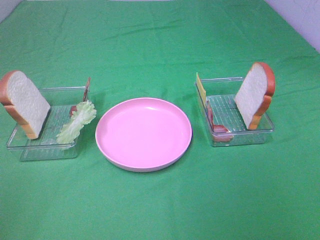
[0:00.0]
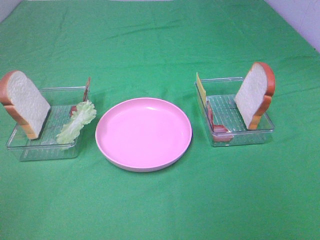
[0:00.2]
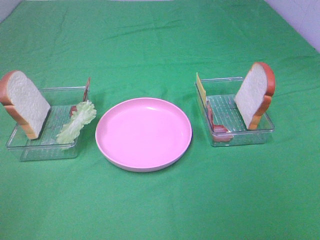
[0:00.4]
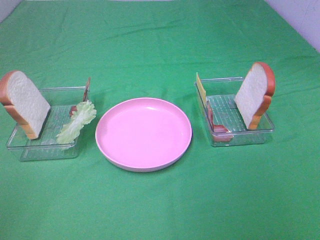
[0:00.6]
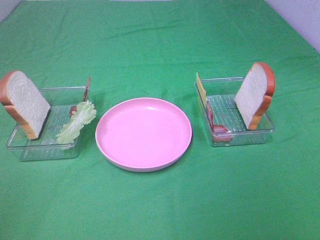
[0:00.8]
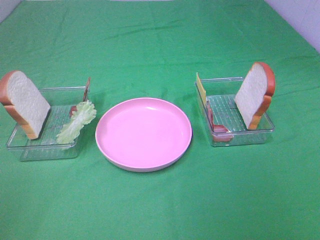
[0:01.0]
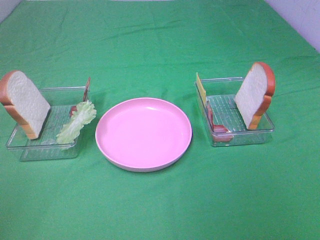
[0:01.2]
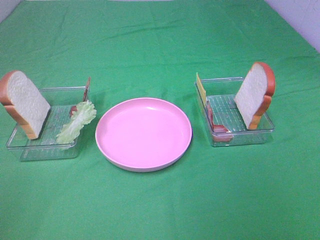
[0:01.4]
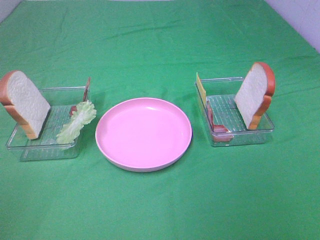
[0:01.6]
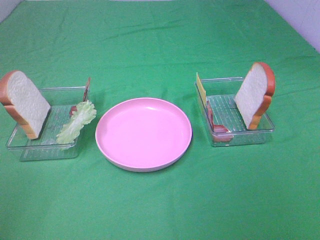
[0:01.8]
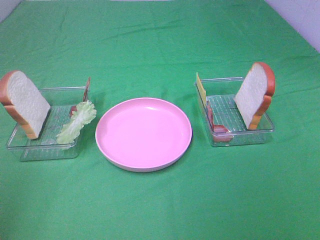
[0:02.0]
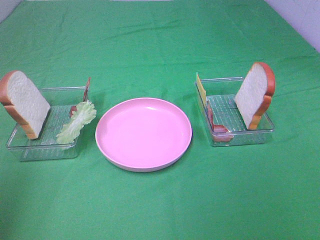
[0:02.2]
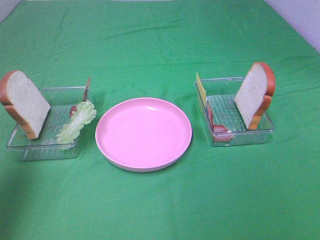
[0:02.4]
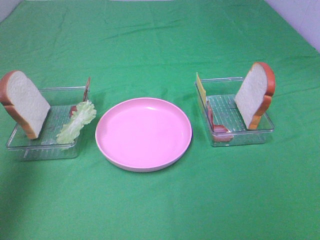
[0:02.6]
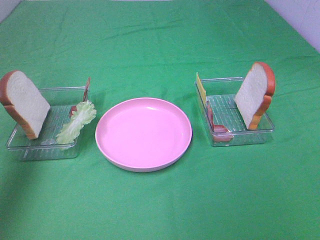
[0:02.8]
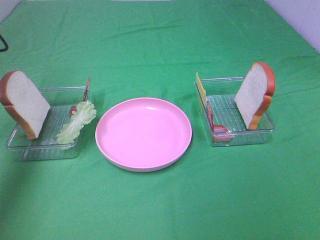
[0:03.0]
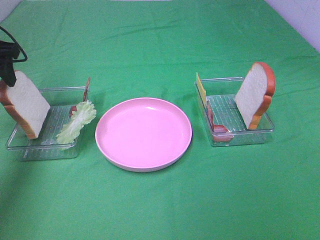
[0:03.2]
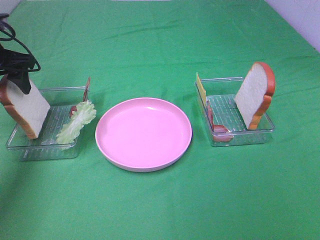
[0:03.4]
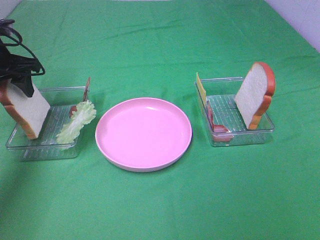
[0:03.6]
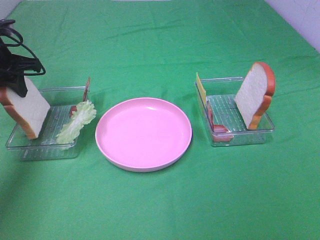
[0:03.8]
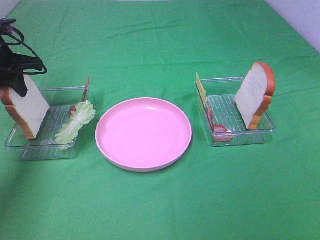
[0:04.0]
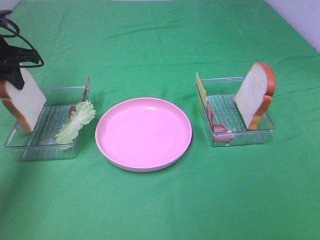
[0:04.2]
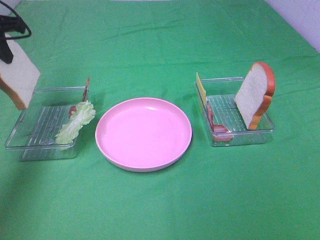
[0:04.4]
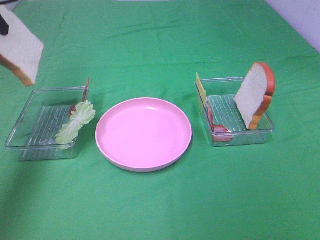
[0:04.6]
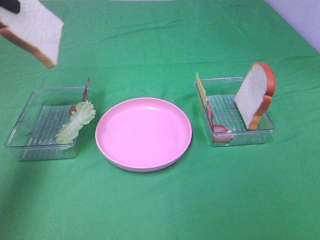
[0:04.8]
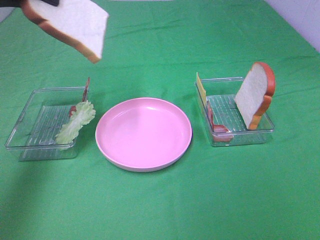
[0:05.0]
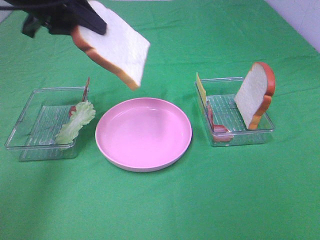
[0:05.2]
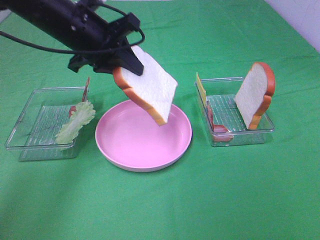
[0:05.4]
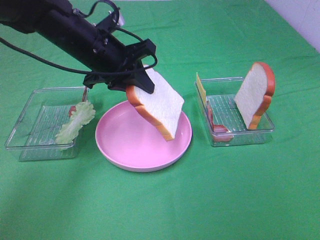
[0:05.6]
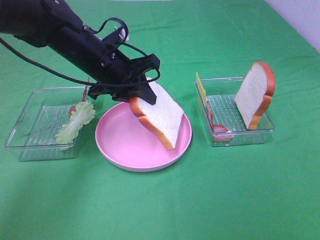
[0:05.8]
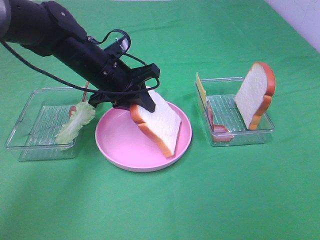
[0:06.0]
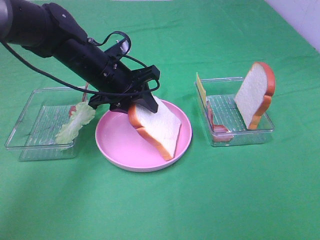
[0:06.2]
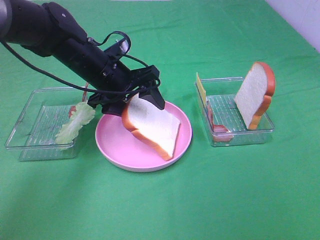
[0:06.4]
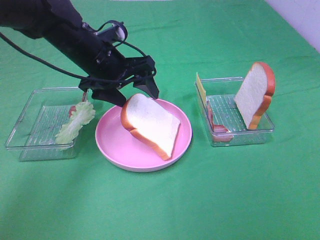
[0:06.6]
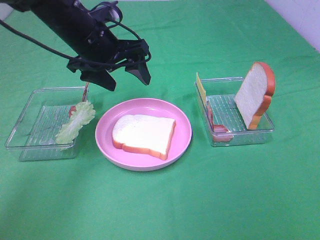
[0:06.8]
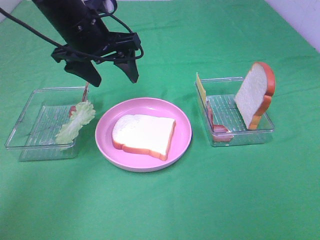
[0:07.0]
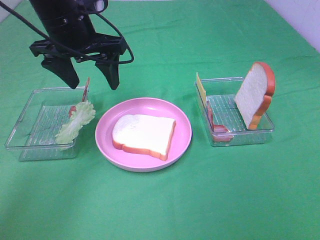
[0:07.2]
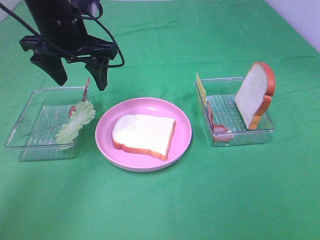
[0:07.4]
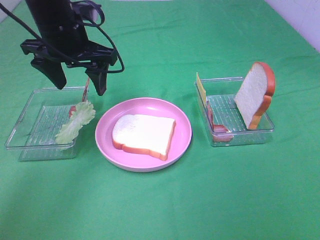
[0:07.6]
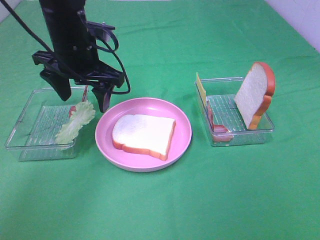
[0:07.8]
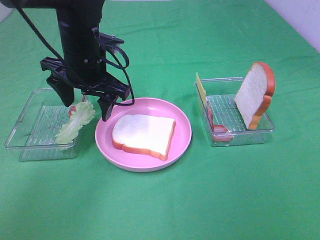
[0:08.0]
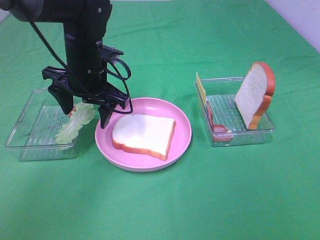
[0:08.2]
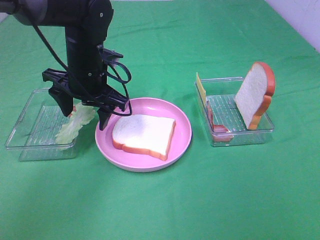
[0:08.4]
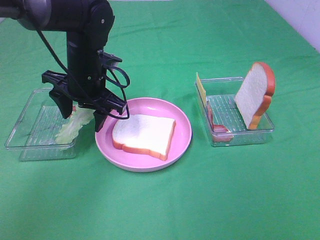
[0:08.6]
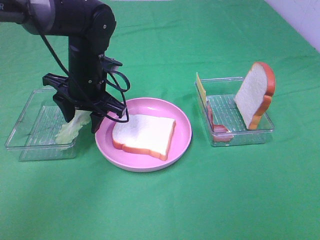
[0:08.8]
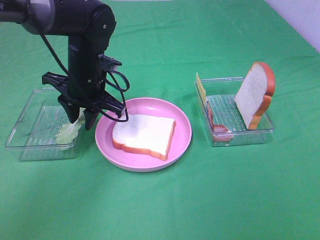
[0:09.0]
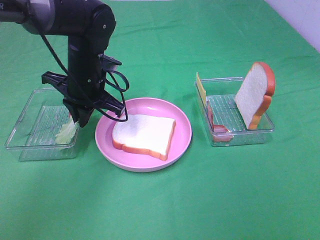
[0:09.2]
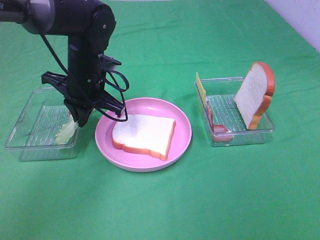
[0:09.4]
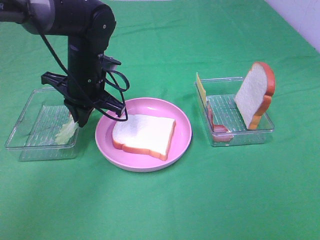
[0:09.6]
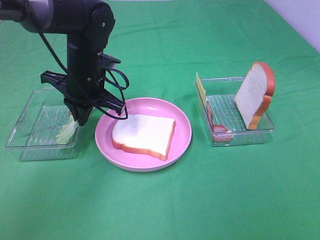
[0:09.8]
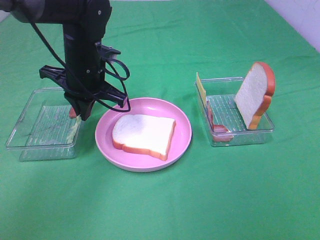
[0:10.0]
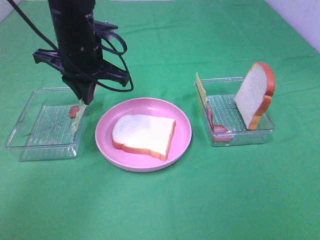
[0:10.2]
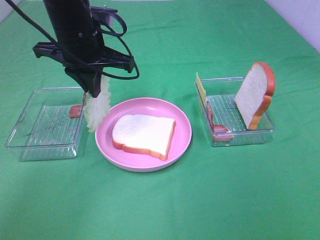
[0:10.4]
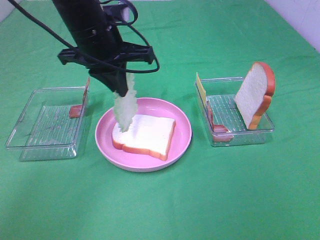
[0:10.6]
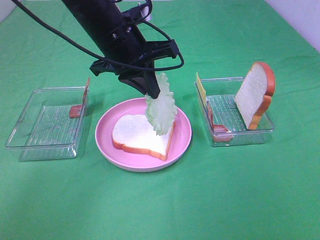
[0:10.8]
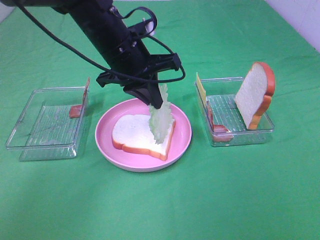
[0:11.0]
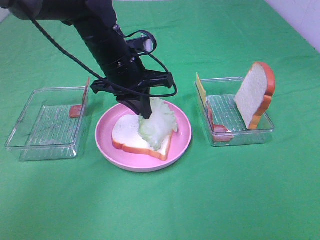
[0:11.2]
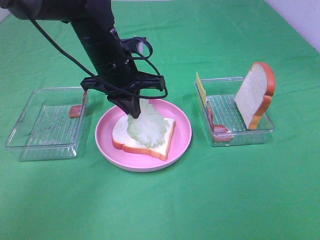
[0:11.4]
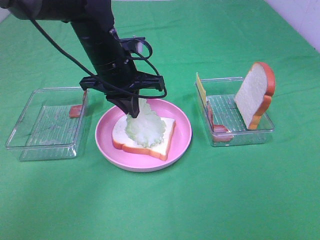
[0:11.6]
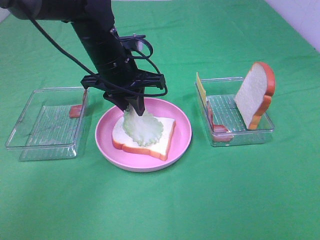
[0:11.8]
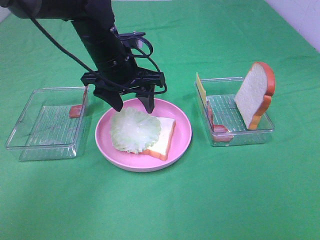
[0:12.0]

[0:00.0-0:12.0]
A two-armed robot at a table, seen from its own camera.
Task of the whole recording: Make sandwiches.
Step, 0:00.0 to 0:03.8: Left hand:grab the bread slice.
Step, 0:04.0 to 0:06.8: Left hand:place the bread slice on the plate.
Step, 0:07.0 to 0:09.2: Left hand:grab the lettuce slice.
0:00.0 to 0:01.6: Neither gripper changes place.
0:01.6 to 0:03.0: The left gripper travels forward by some 35 cm.
0:03.0 to 0:04.4: The left gripper goes downward and returns, approximately 10 cm each way, and closes up.
0:04.4 to 0:06.0: The left gripper shifts some 25 cm to the right and downward.
0:06.0 to 0:07.6: The left gripper heads upward, covering roughly 10 cm, and opens up.
0:07.6 to 0:09.0: The left gripper goes about 10 cm downward, and closes up.
0:09.0 to 0:10.4: The left gripper heads upward, covering about 10 cm, and closes up.
0:10.4 to 0:12.0: The left gripper shifts about 5 cm downward, and opens.

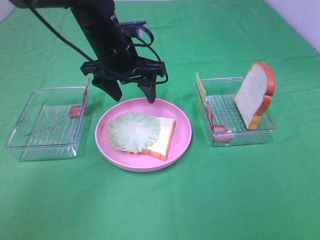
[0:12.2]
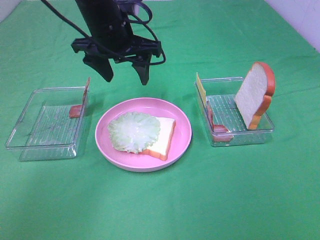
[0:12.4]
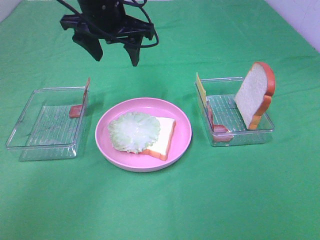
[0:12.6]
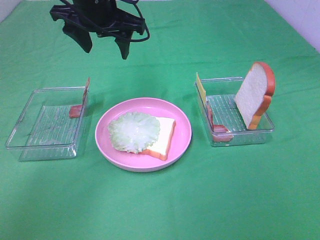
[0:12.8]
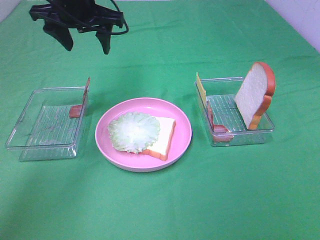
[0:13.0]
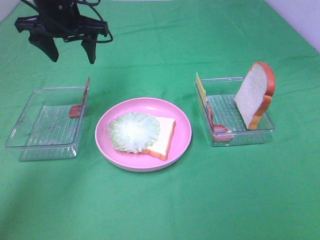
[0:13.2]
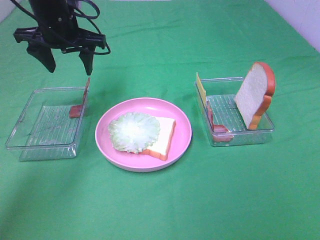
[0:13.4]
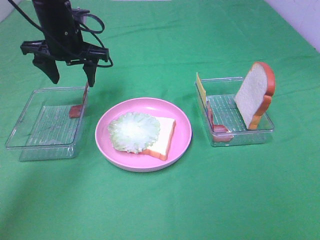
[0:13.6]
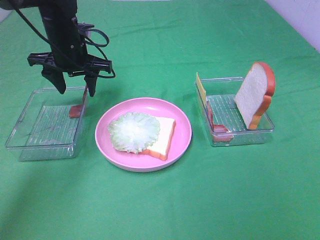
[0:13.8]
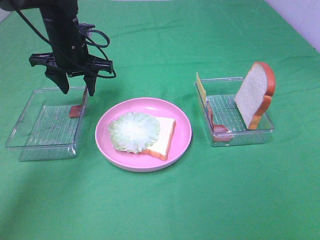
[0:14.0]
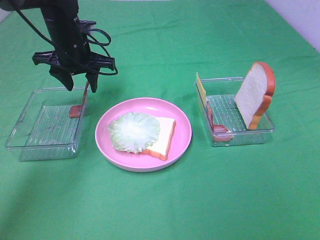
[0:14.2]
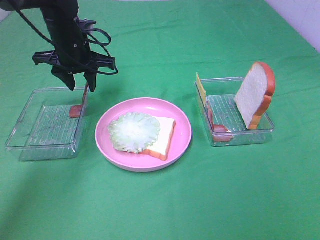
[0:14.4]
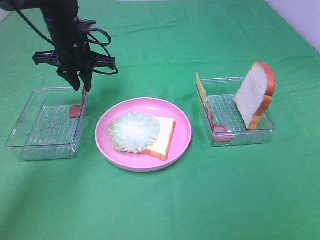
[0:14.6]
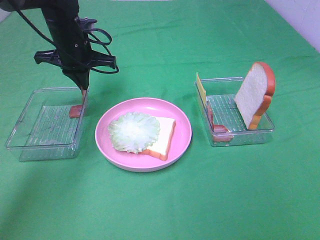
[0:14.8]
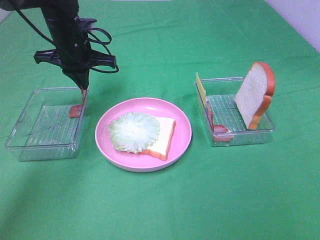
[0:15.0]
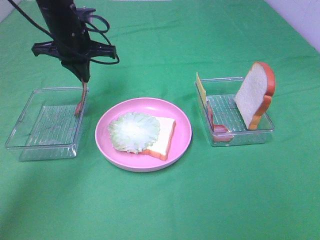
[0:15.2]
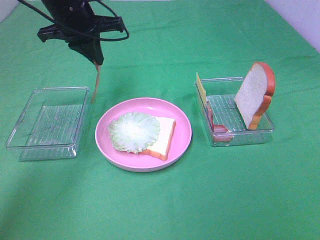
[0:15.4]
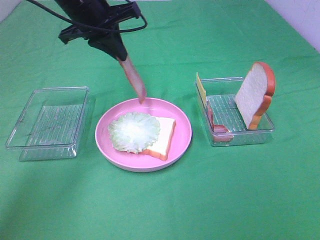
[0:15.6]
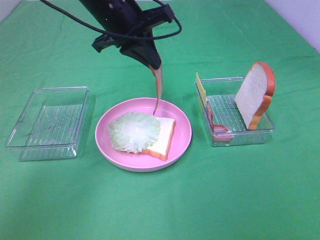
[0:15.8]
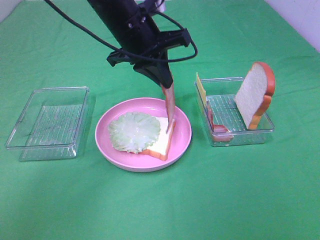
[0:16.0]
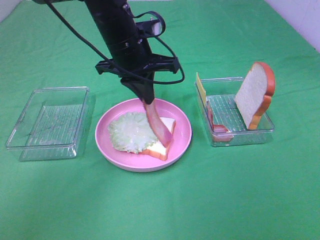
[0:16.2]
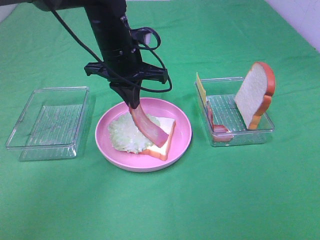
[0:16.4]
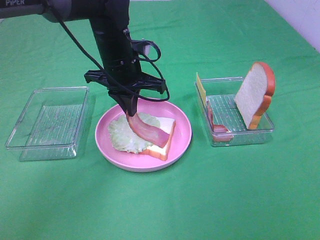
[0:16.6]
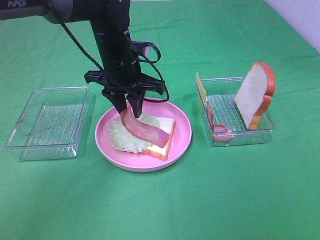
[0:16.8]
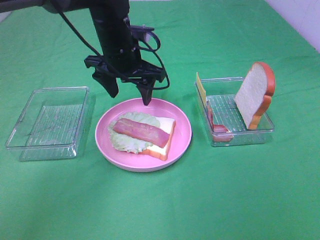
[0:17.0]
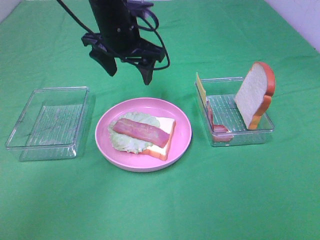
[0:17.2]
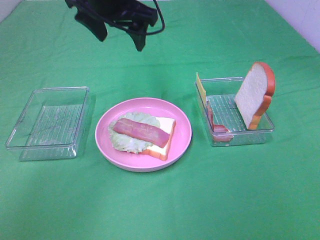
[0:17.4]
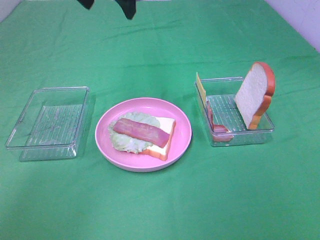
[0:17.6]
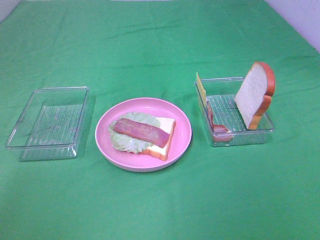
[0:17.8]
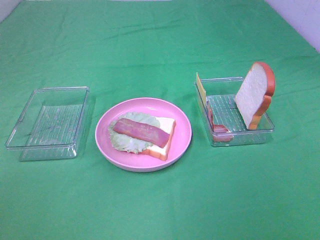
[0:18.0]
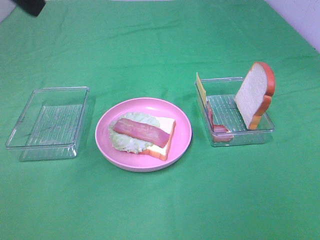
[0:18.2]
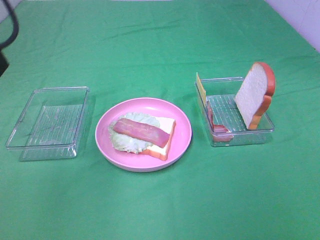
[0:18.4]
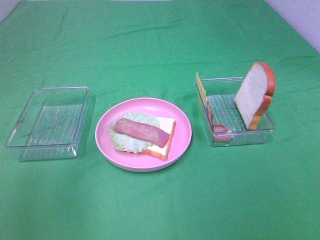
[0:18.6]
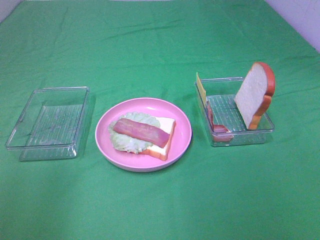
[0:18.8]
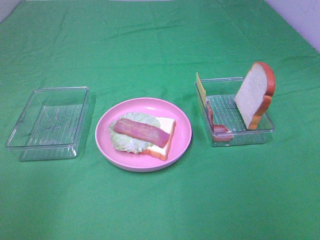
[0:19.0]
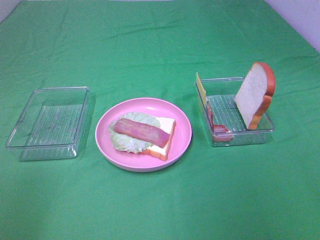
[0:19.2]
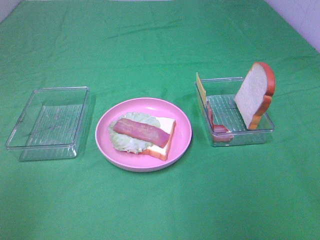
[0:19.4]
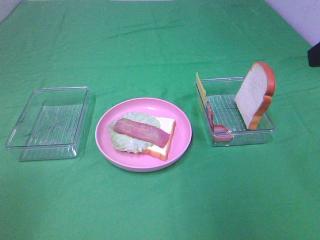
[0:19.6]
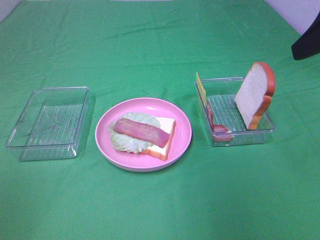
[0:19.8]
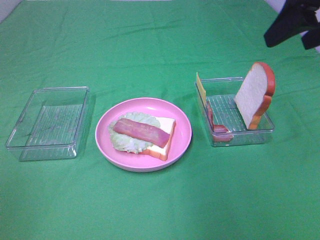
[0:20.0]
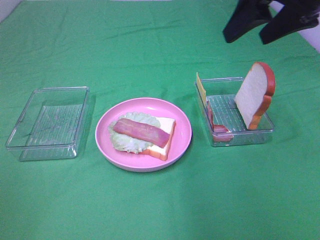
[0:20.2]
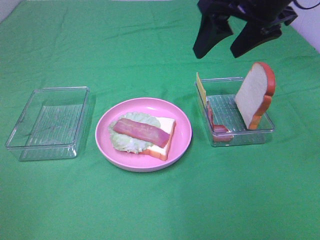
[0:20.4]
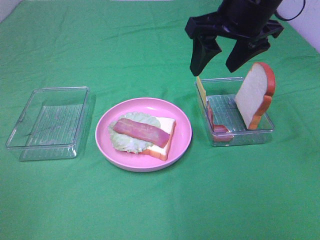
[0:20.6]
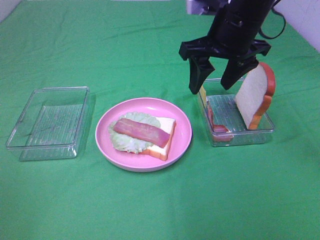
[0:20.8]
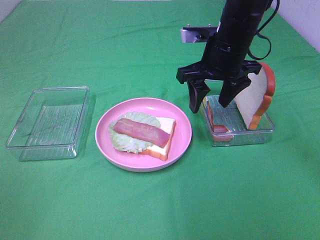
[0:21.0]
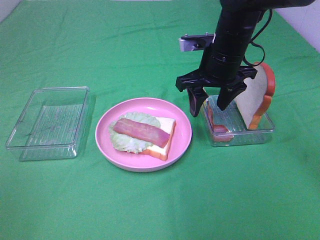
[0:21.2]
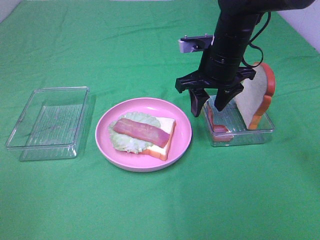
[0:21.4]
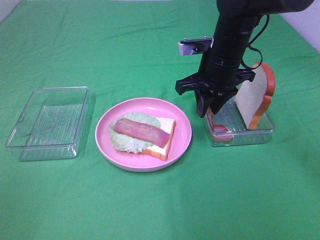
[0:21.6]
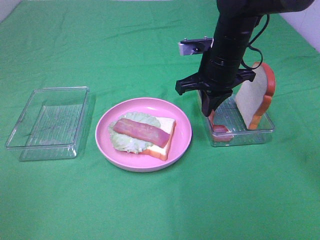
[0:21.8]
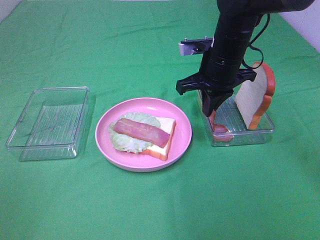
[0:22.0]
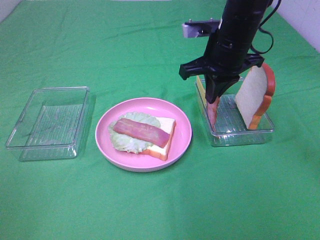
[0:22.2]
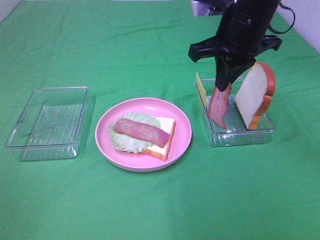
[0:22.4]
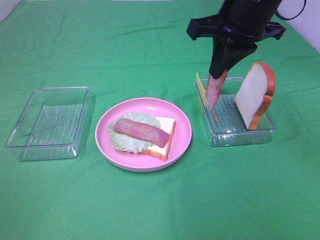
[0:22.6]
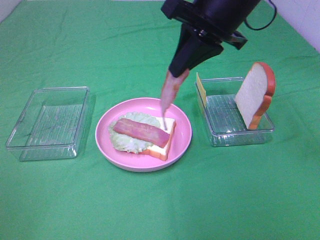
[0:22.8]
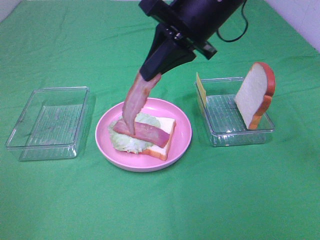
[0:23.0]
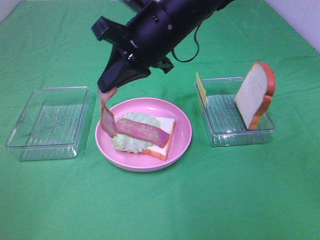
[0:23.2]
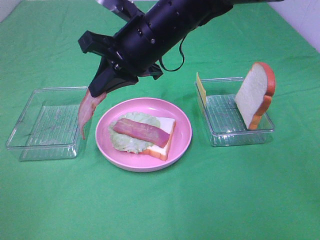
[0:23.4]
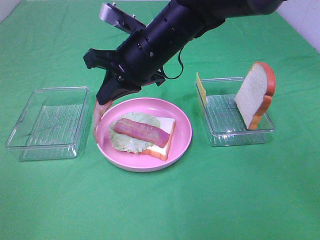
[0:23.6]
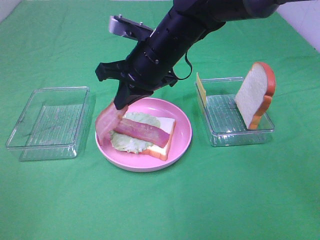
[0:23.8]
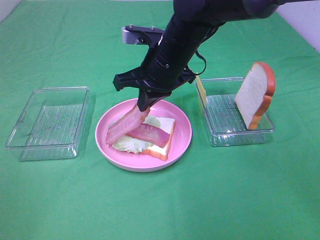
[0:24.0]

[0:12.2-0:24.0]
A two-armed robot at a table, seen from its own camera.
Task of the whole recording: Make sandwiches.
Step, 0:12.2 to 0:14.8: Left hand:grab the bacon.
Step, 0:15.0 to 0:16.8: Left hand:place bacon on lettuce slice.
Step, 0:17.0 to 0:22.0: Right hand:grab the bacon.
0:12.2 to 0:13.6: The left gripper shifts approximately 10 cm to the left and forward.
0:13.6 to 0:15.2: The left gripper closes up.
0:15.2 to 0:16.6: The left gripper goes about 10 cm to the right.
0:16.6 to 0:18.2: The left gripper moves upward, backward and to the left, roughly 30 cm, and opens its fingers.
0:18.2 to 0:19.6: The left gripper is displaced backward, to the left and downward by some 30 cm, while the right gripper heads forward, covering some 20 cm.
0:19.6 to 0:21.0: The right gripper heads forward, to the left and downward, covering some 25 cm.
0:21.0 to 0:22.6: The right gripper is displaced upward by some 10 cm, and closes.
0:22.6 to 0:24.0: The right gripper heads downward and to the left, covering approximately 15 cm.
